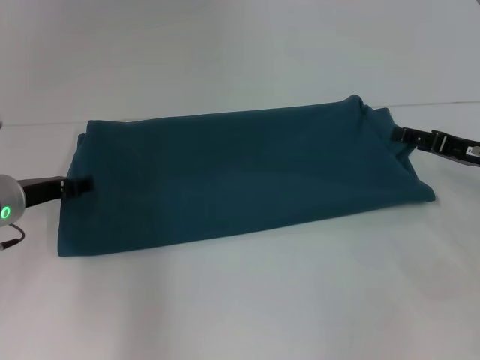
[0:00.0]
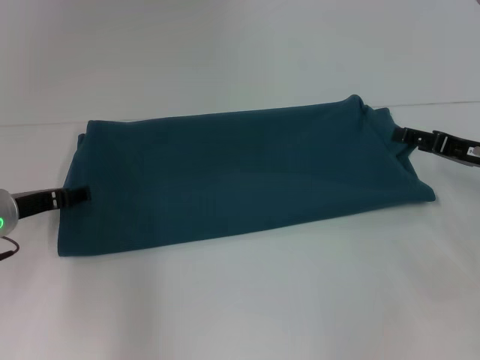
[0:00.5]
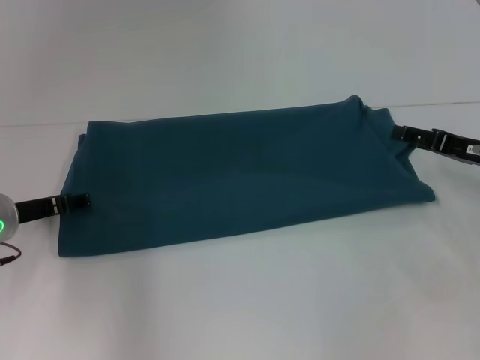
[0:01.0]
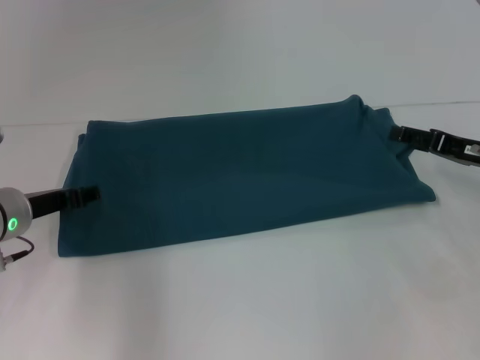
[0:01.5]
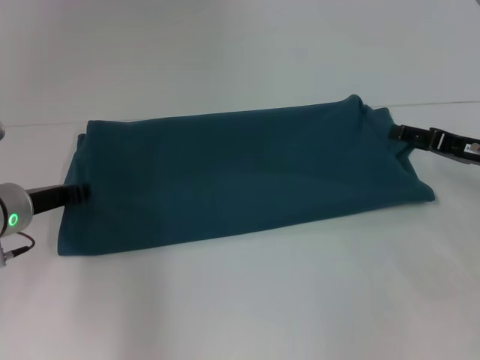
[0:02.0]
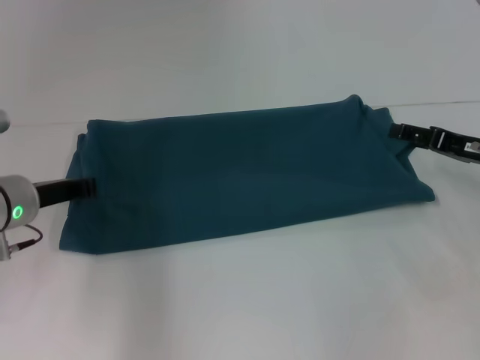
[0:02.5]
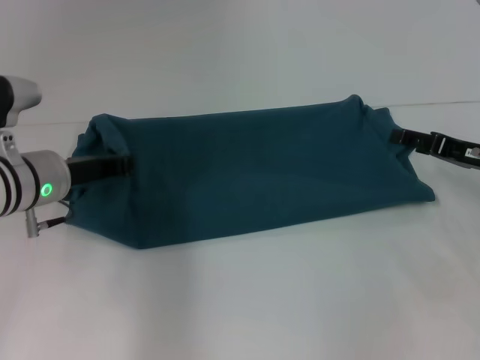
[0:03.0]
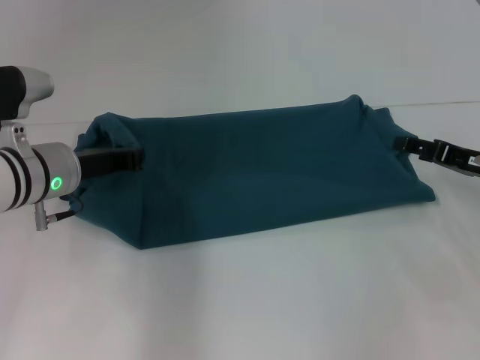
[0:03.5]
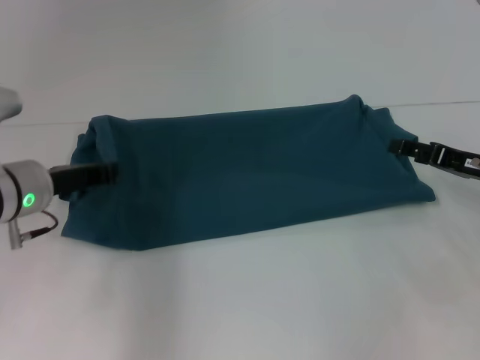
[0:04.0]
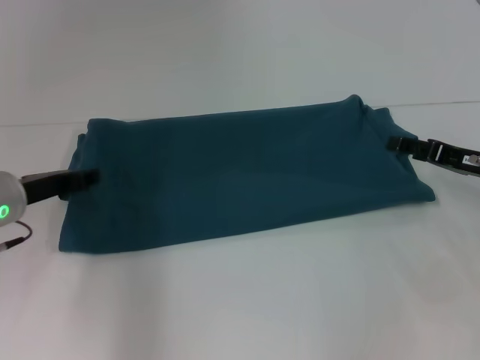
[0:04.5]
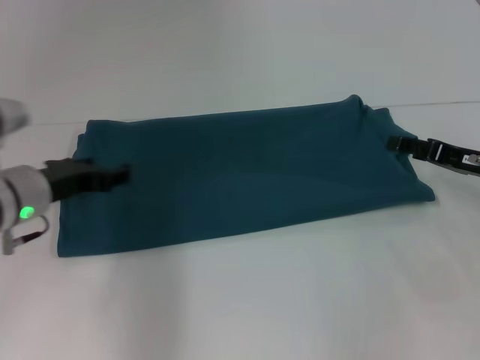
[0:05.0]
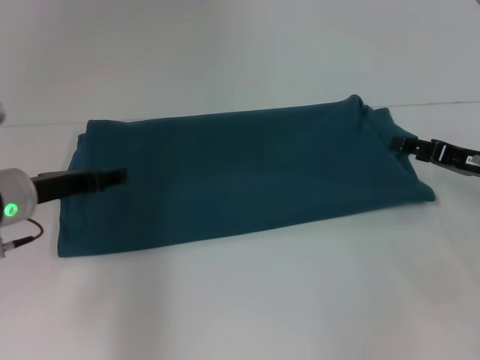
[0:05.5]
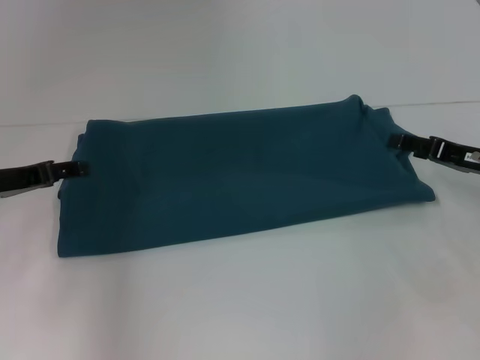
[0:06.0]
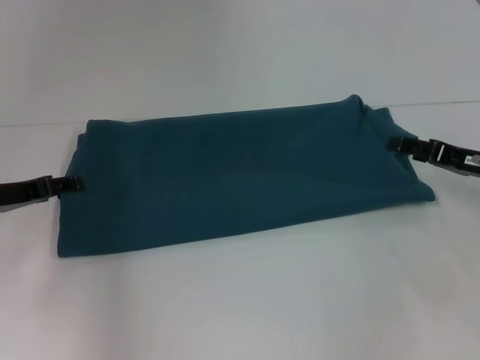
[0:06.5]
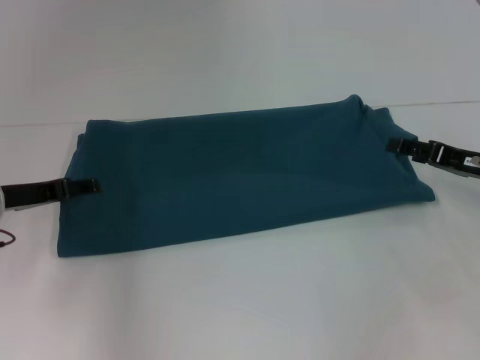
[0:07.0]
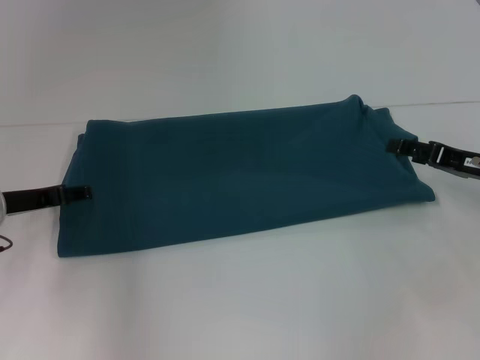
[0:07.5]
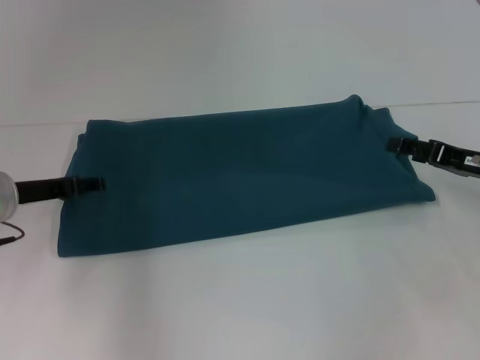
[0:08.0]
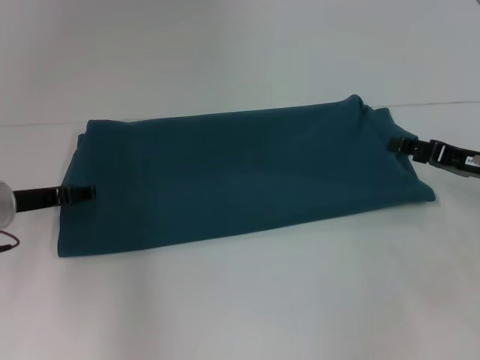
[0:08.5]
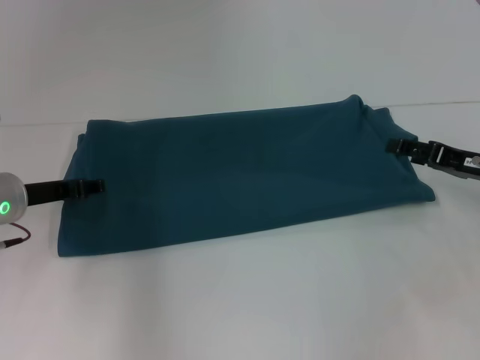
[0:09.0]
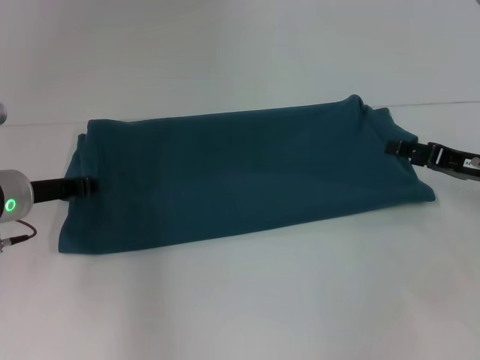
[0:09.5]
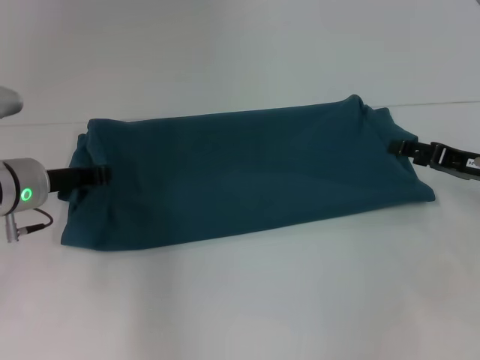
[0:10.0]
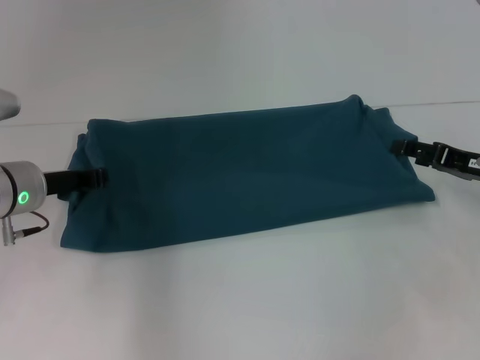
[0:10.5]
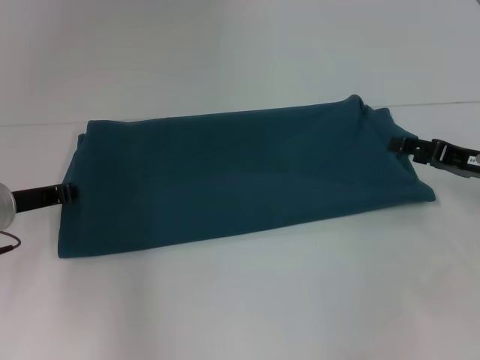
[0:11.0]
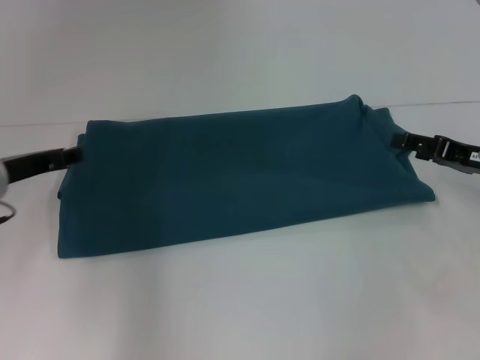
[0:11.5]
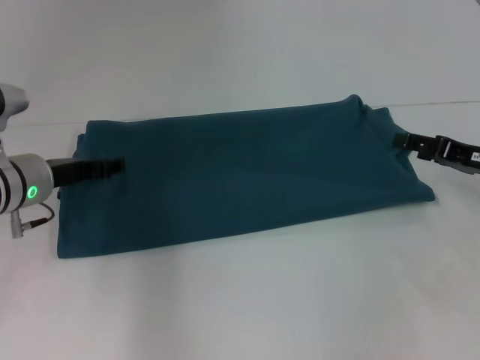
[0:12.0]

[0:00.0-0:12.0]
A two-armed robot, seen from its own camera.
0:00.0 to 0:02.0: The left gripper opens, then closes again.
0:02.0 to 0:04.0: The left gripper closes up.
0:04.0 to 0:06.0: The left gripper moves to the left, roughly 5 cm, and opens its fingers.
0:06.0 to 0:08.0: The grippers make only small movements.
0:08.0 to 0:10.0: The left gripper closes up.
0:10.0 to 0:12.0: The left gripper opens.

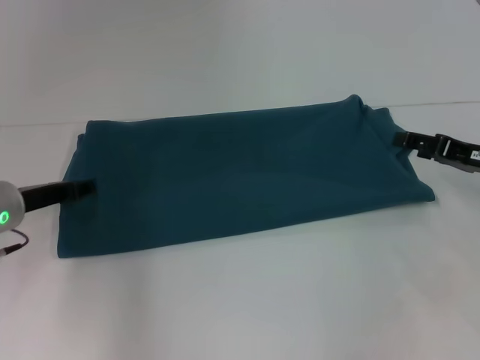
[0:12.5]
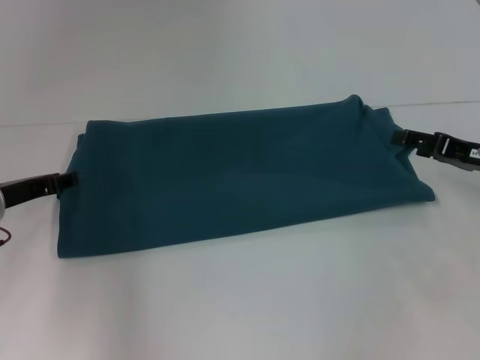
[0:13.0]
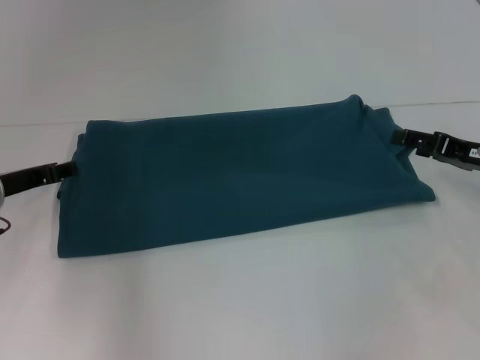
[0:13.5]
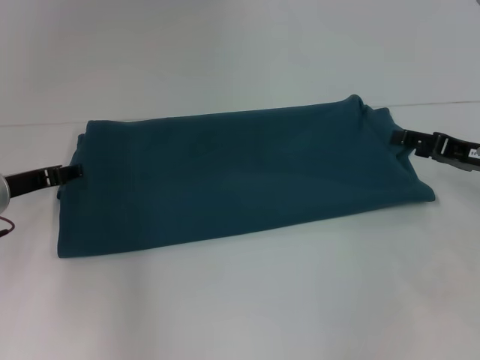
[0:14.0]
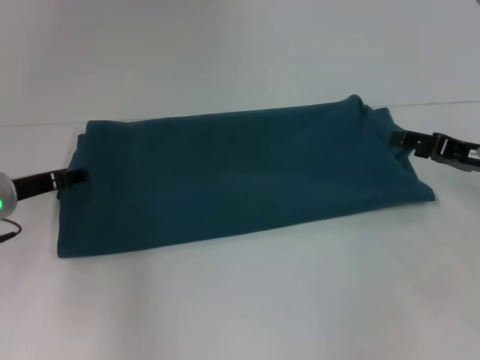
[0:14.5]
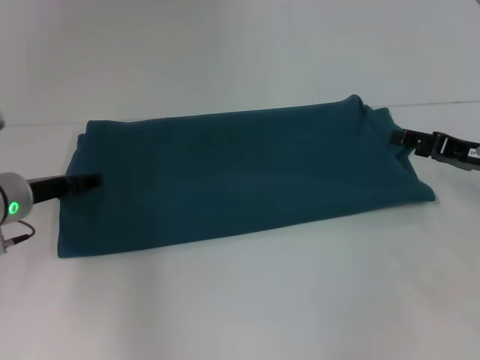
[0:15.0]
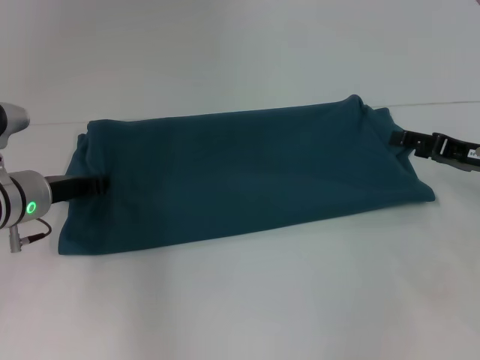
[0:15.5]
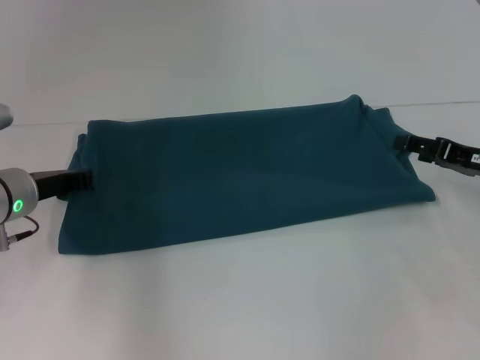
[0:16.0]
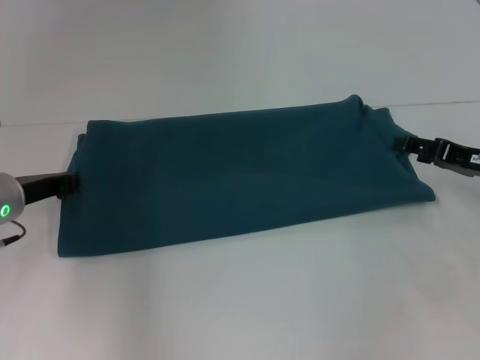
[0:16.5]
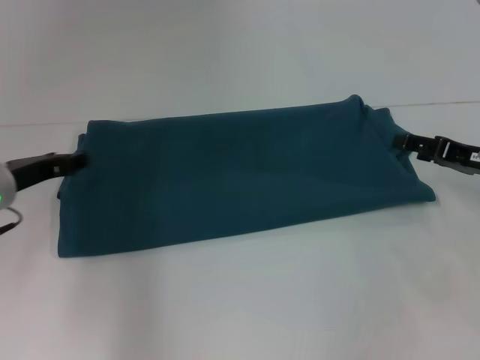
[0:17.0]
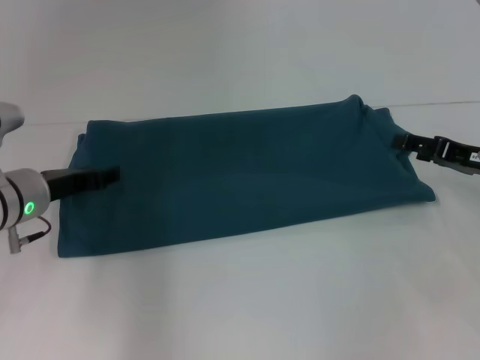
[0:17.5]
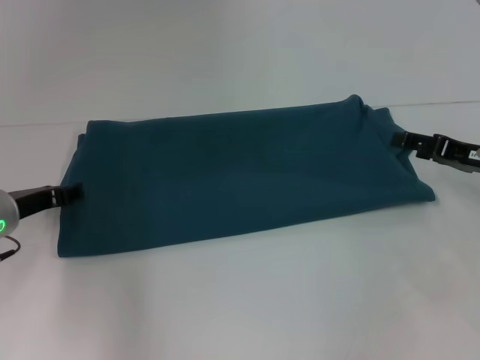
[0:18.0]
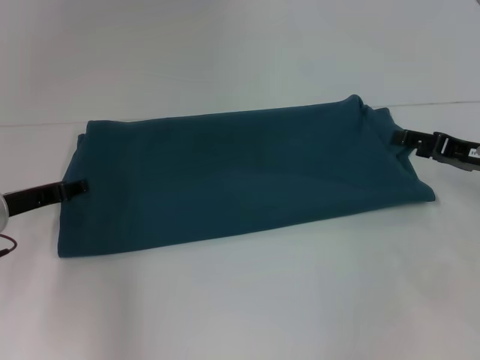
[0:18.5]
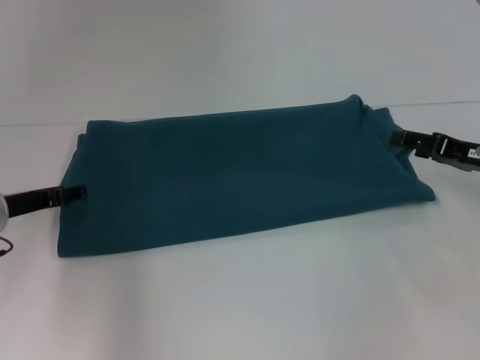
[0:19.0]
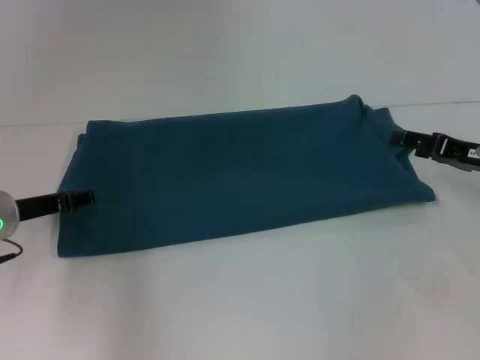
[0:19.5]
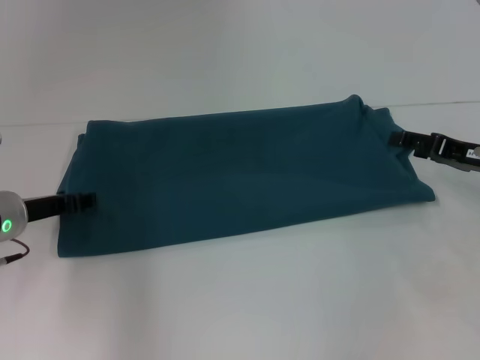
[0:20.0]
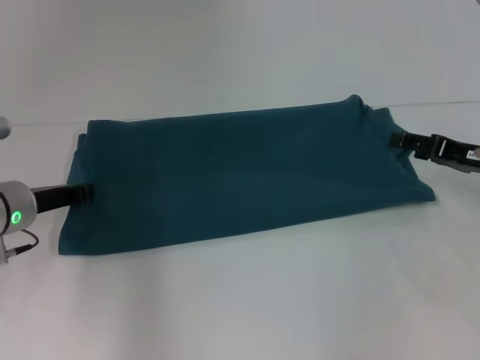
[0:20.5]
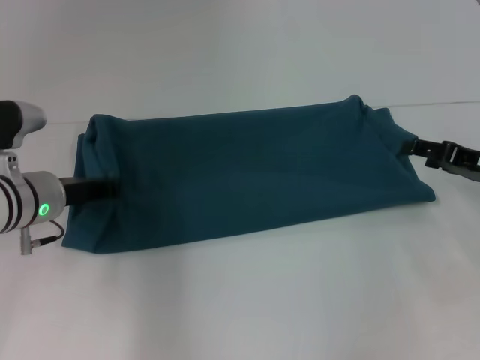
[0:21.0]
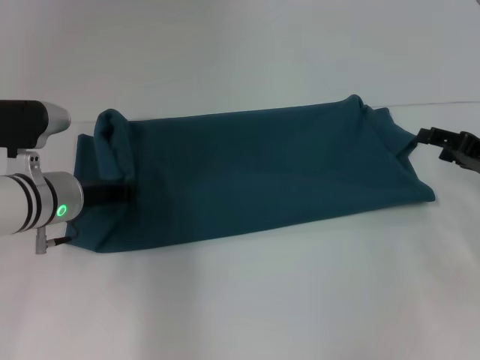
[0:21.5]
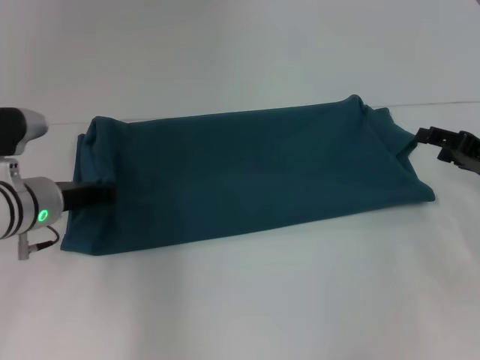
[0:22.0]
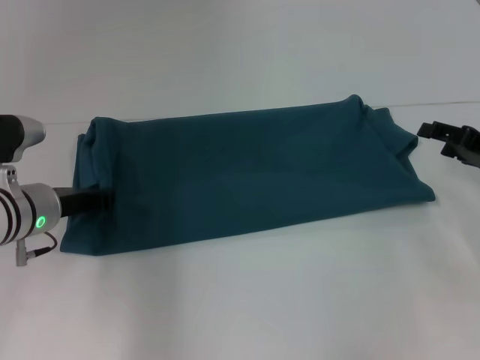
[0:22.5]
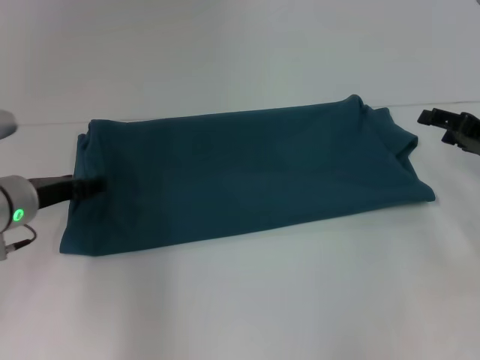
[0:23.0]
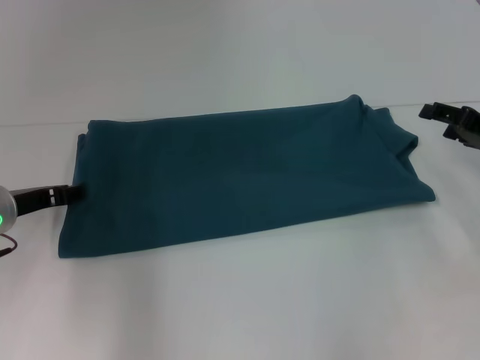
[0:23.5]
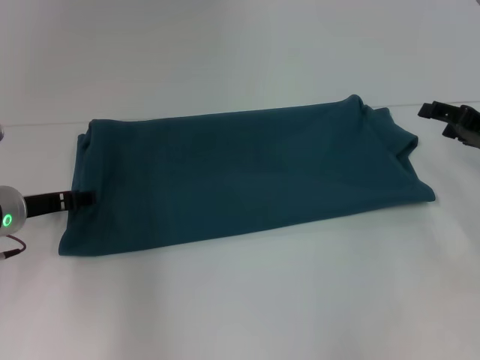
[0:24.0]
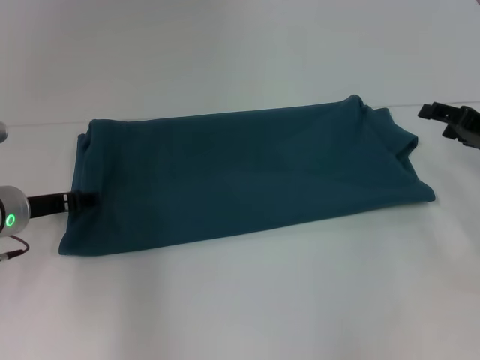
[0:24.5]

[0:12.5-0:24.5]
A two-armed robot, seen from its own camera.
0:12.5 to 0:14.5: The grippers stay close to where they were, moving slightly.
0:14.5 to 0:16.5: The left gripper closes its fingers.
0:16.5 to 0:18.5: The left gripper opens its fingers.
0:18.5 to 0:20.5: The grippers make only small movements.
0:20.5 to 0:22.5: The grippers make only small movements.
0:22.5 to 0:24.5: The left gripper opens.

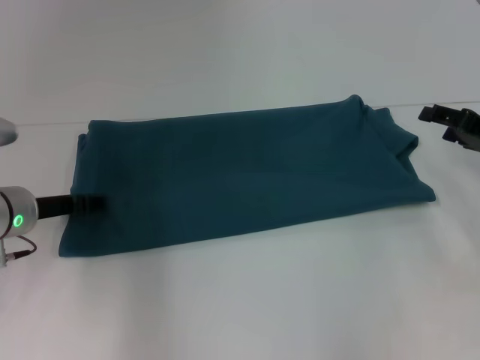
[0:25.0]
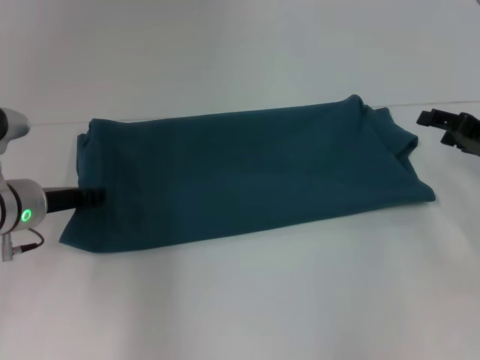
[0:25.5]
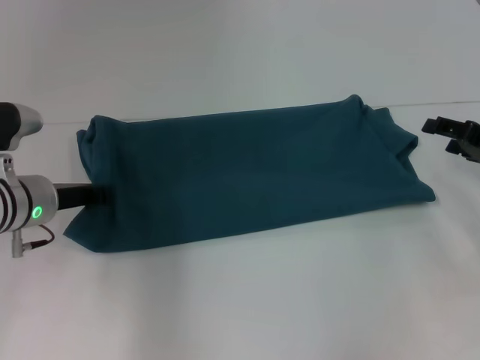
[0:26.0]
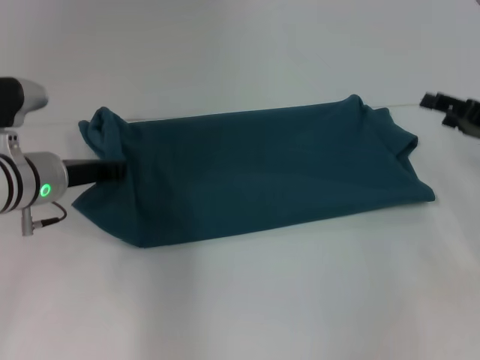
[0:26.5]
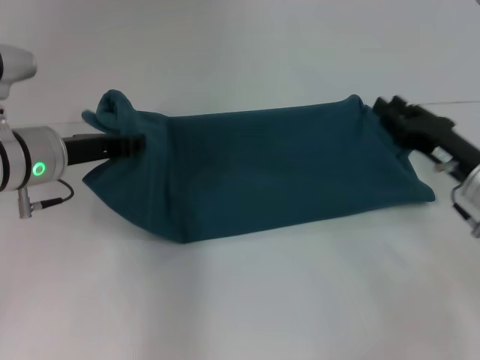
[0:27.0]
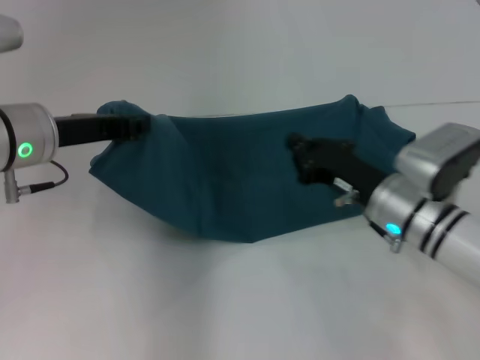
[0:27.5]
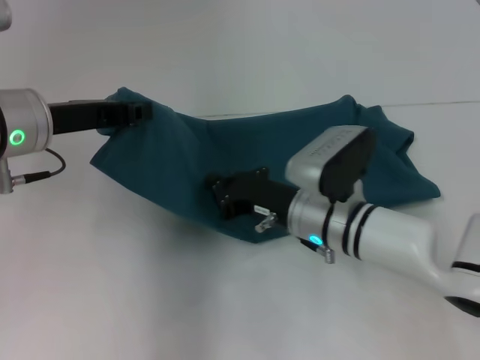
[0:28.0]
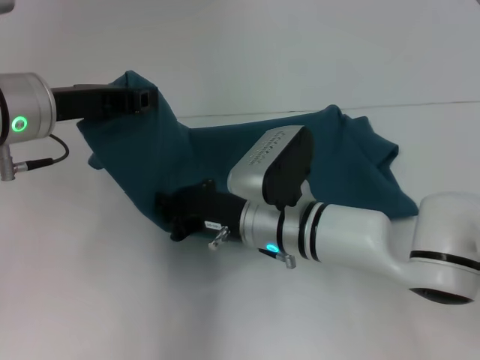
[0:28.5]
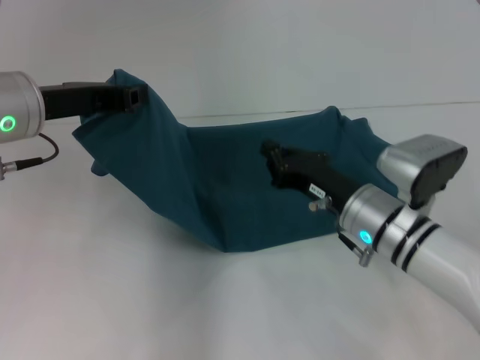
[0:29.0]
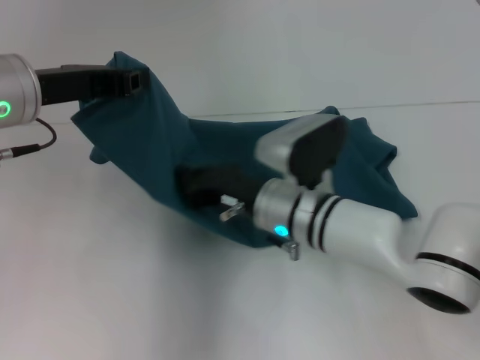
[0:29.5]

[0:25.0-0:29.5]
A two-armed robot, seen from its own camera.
0:25.0 to 0:27.0: The left gripper goes some 5 cm upward, and closes its fingers. Meanwhile the right gripper travels to the left by about 5 cm.
0:27.0 to 0:29.5: The right gripper goes left and right, roughly 20 cm each way, reversing 2 times, and closes its fingers; the left gripper is displaced upward by about 10 cm.
